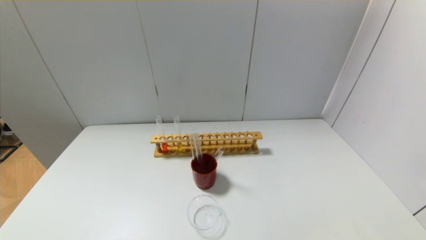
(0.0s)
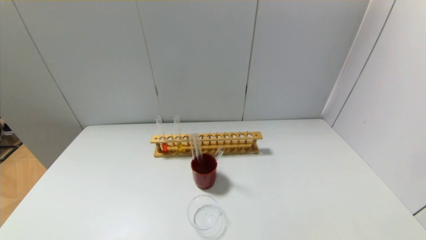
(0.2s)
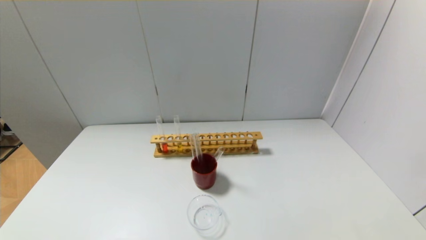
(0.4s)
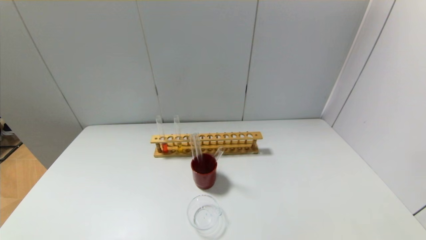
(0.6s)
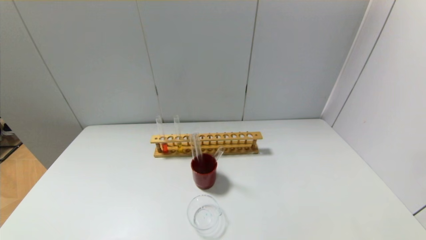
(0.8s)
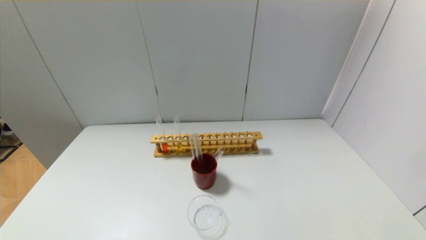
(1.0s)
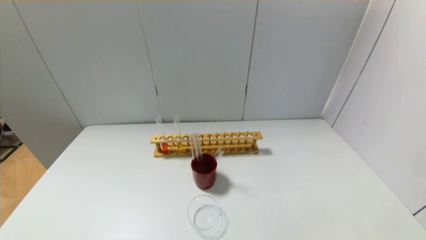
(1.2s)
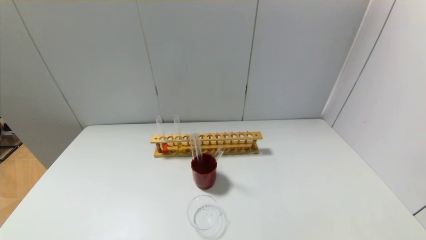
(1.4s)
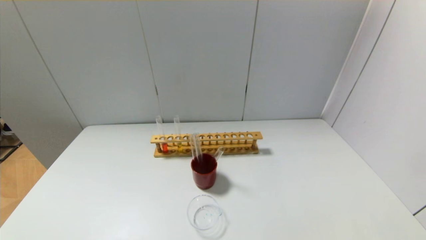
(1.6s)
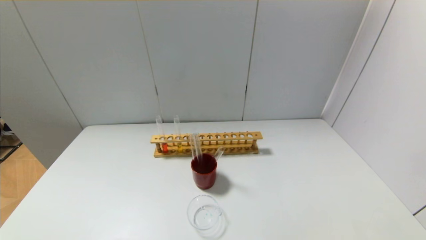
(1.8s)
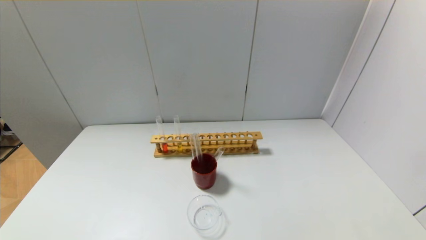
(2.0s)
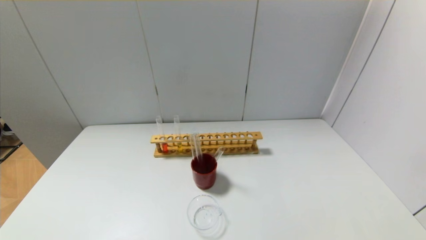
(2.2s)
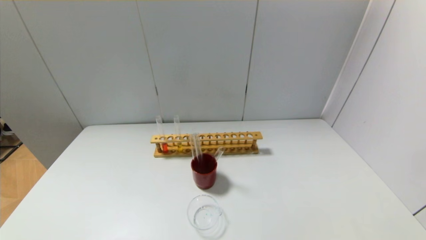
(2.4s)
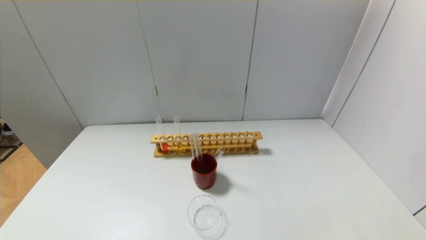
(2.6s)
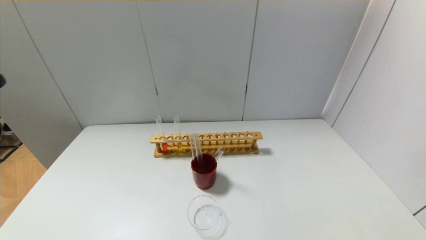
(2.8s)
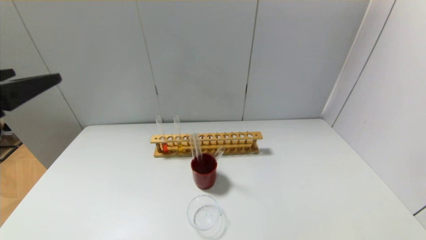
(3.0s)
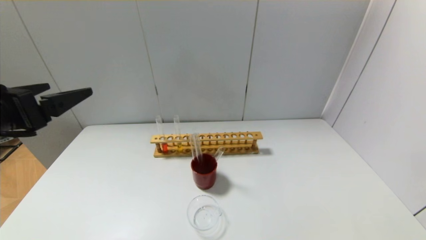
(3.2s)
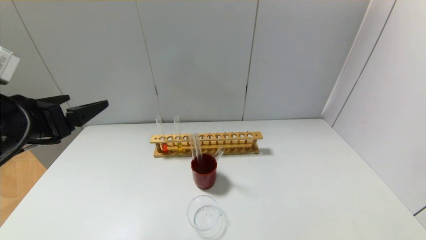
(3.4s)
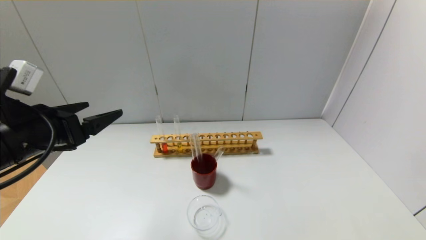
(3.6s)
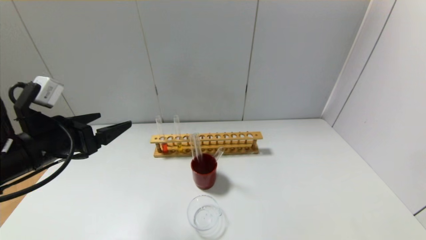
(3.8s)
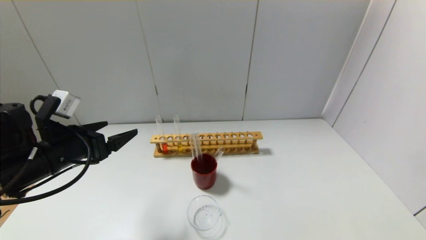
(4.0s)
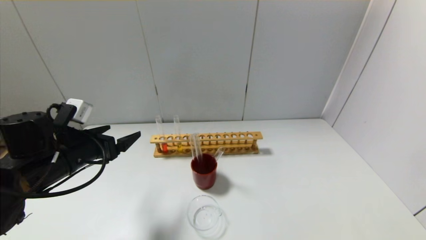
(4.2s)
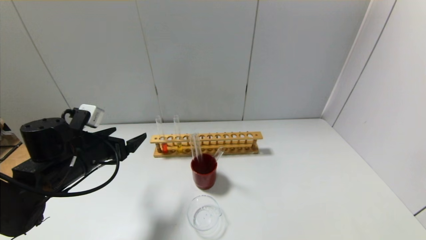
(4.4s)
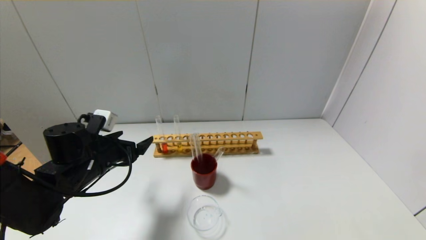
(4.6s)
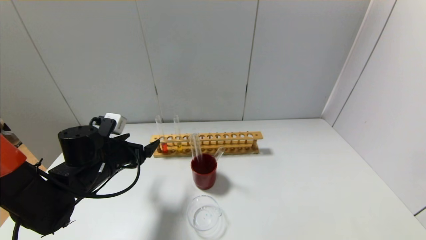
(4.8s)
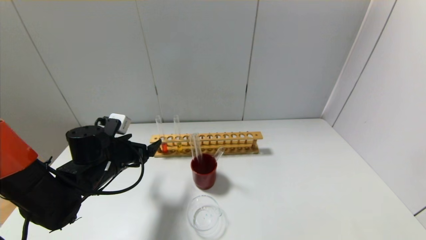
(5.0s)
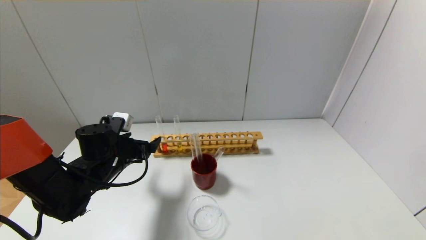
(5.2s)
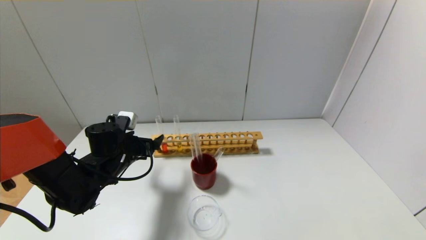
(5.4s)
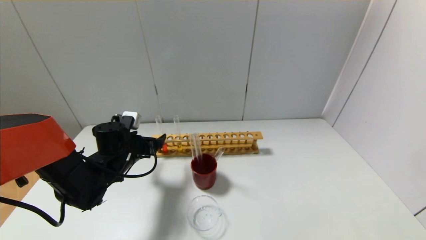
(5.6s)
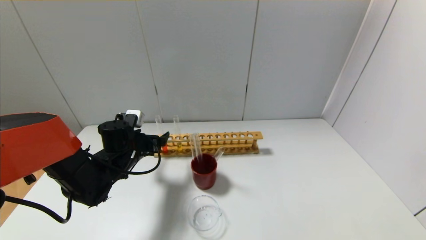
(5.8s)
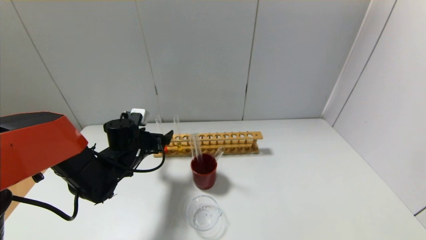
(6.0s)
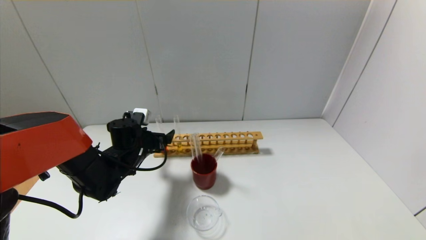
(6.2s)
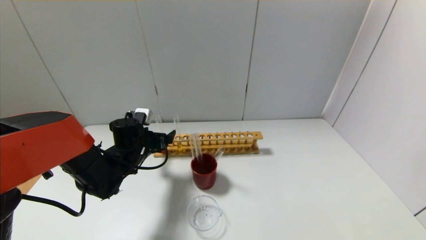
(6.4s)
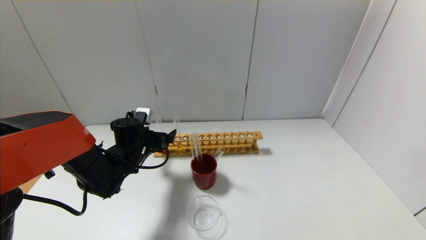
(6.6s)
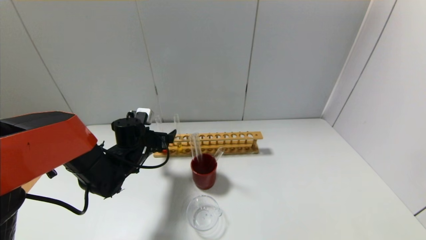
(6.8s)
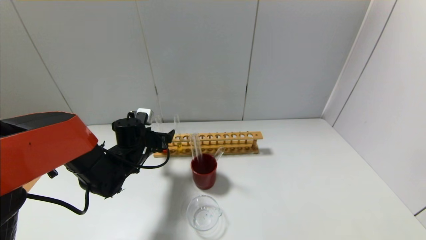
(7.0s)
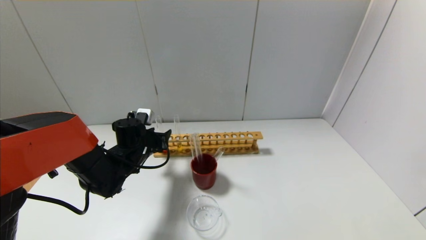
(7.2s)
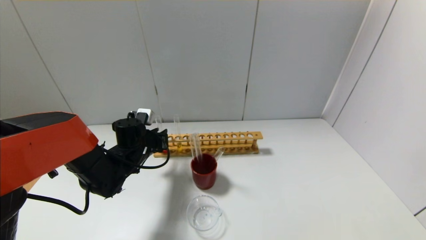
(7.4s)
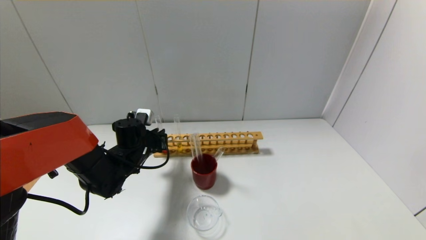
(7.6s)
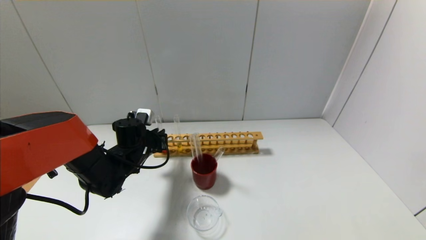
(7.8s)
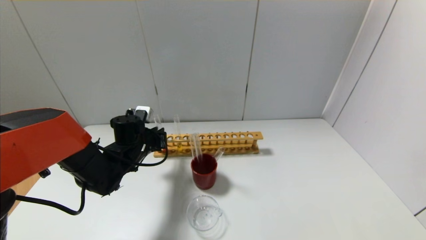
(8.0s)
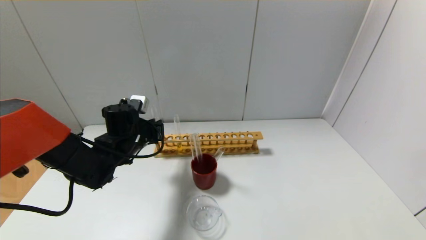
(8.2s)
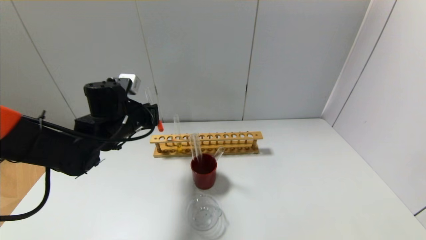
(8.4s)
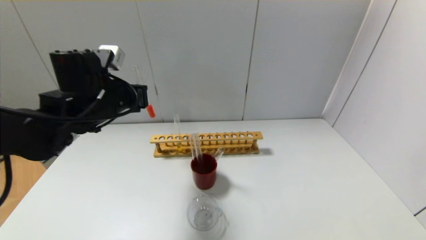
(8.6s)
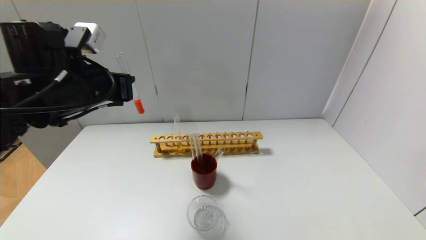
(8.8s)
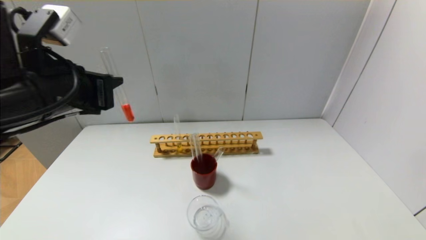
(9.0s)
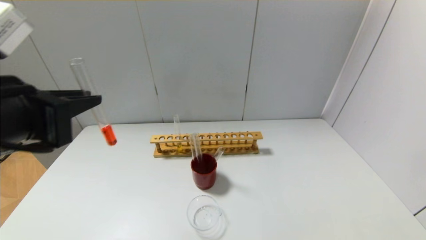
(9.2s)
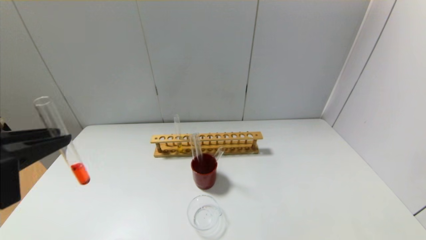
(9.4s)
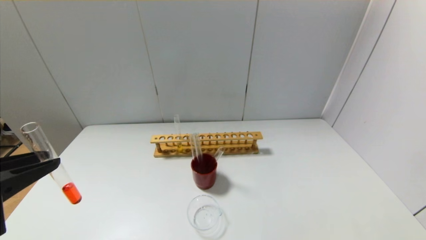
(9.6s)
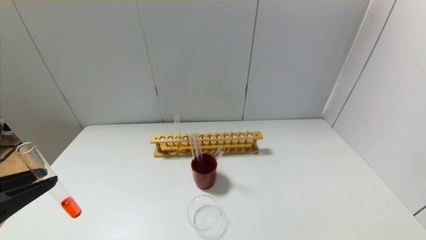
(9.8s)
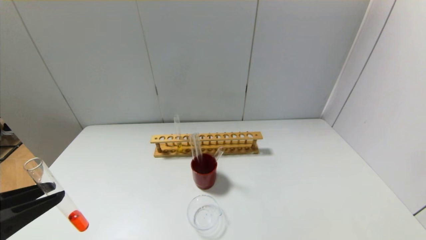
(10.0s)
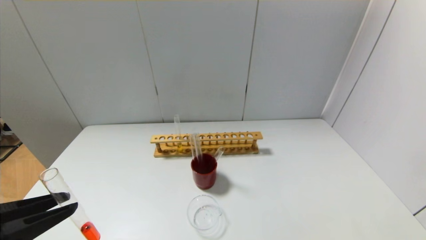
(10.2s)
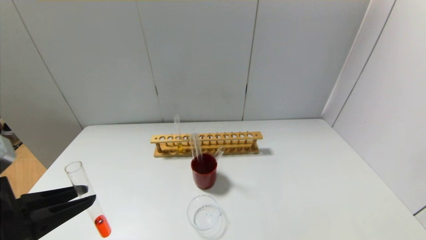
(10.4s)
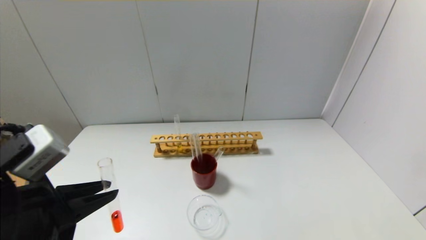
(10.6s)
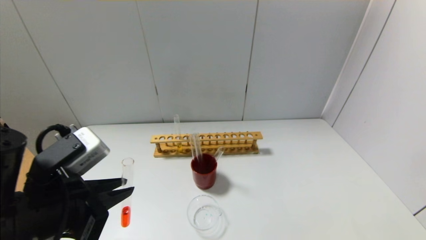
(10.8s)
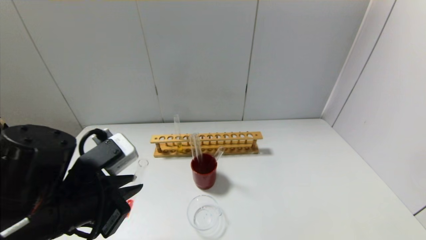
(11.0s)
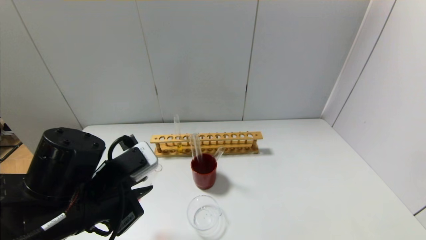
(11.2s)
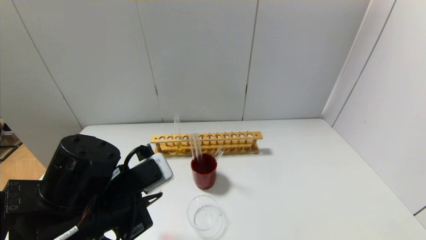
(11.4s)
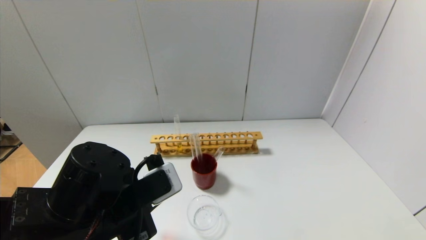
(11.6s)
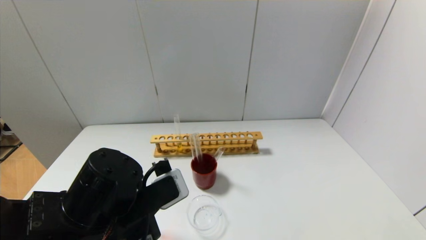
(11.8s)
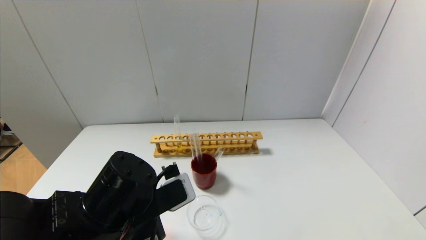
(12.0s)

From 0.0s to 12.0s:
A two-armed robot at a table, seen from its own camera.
Step, from 0.0s to 7.6s: Grasp the red reagent with the left gripper.
From 0.0s to 1.6s: The two grippers keep their place.
From 1.6s to 3.0s: The left gripper travels upward and forward by roughly 25 cm.
From 3.0s to 4.4s: The left gripper heads downward and forward, covering approximately 20 cm.
From 4.4s to 6.0s: The left gripper goes approximately 10 cm forward and to the right.
From 6.0s to 7.6s: The left gripper closes up.
From 7.6s to 9.0s: The left gripper heads upward and backward, covering some 30 cm.
From 9.0s to 10.4s: The left gripper heads backward and downward, covering some 15 cm.
From 10.4s to 12.0s: The left gripper goes about 15 cm to the right, downward and forward.

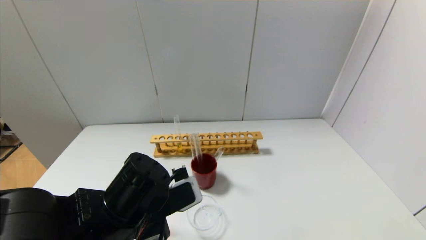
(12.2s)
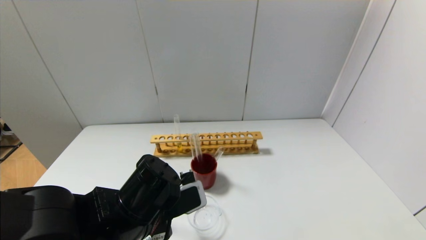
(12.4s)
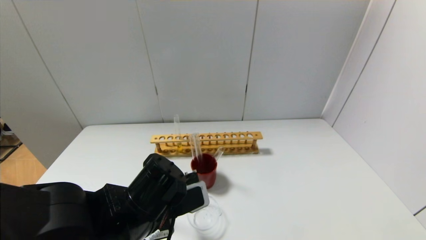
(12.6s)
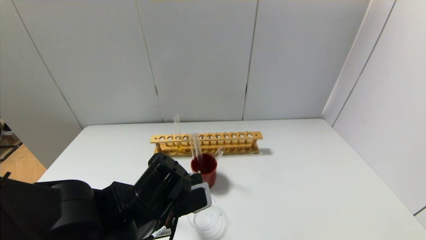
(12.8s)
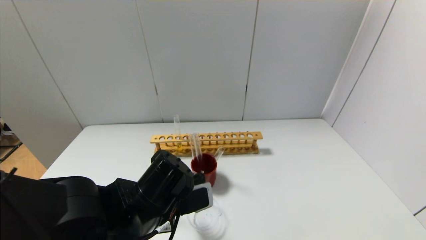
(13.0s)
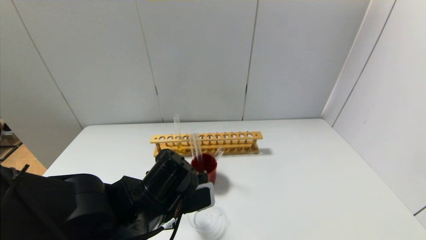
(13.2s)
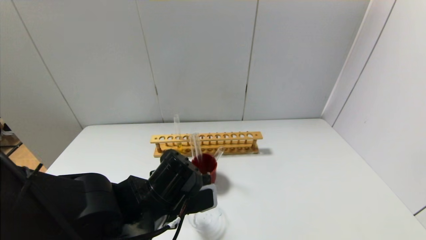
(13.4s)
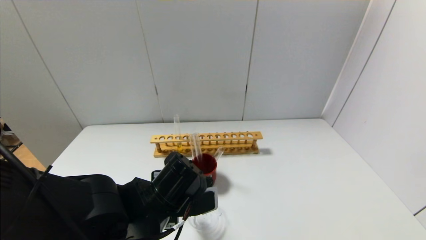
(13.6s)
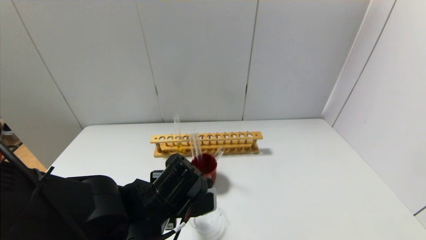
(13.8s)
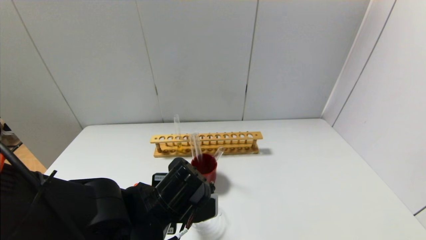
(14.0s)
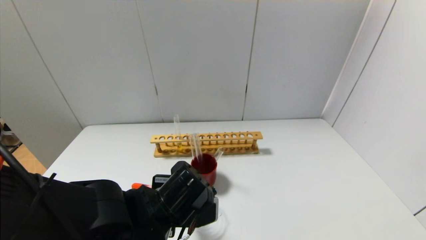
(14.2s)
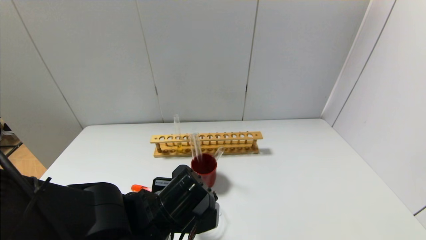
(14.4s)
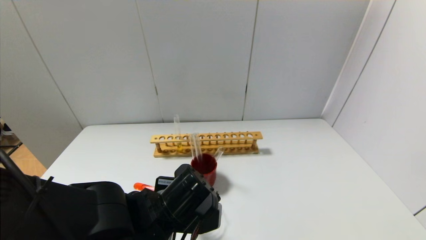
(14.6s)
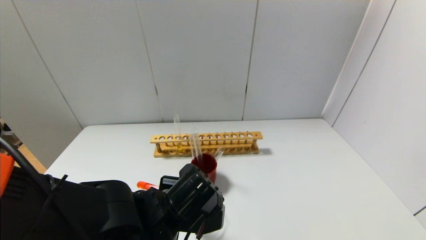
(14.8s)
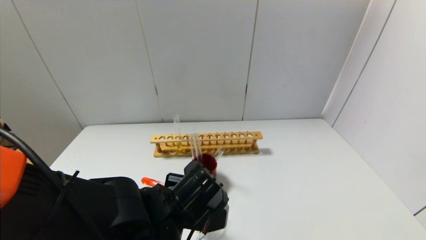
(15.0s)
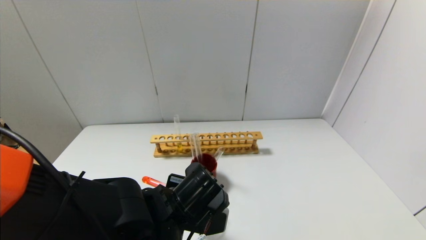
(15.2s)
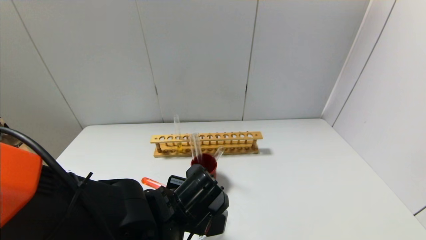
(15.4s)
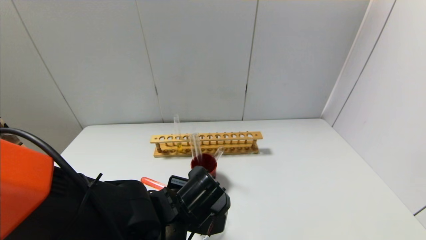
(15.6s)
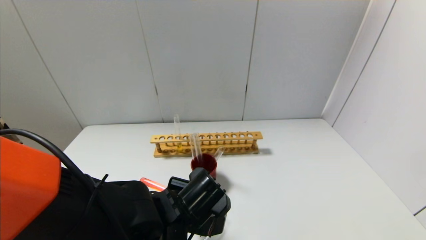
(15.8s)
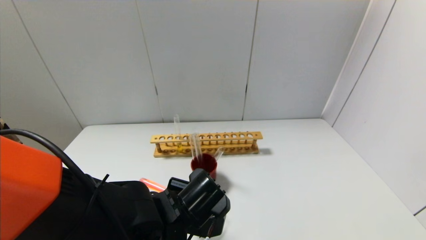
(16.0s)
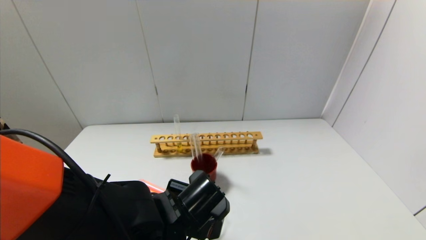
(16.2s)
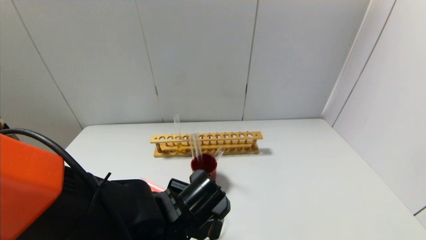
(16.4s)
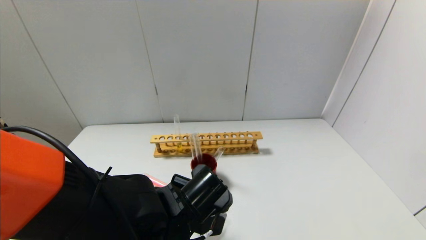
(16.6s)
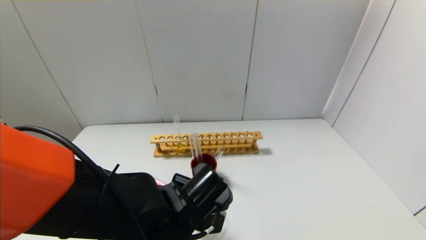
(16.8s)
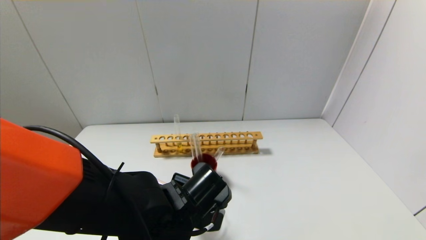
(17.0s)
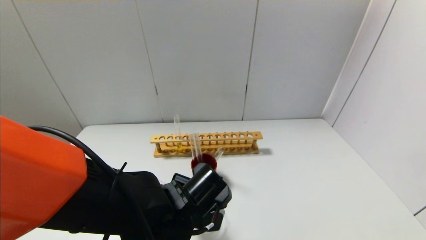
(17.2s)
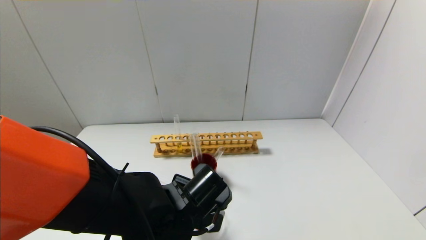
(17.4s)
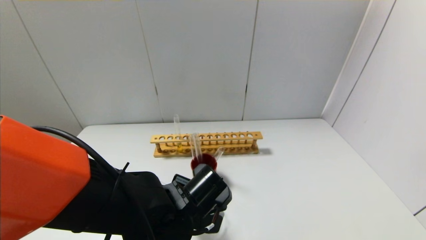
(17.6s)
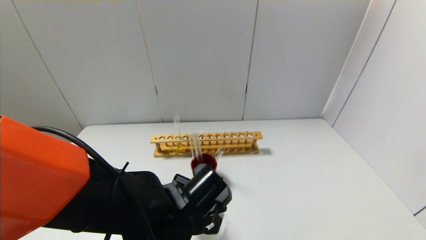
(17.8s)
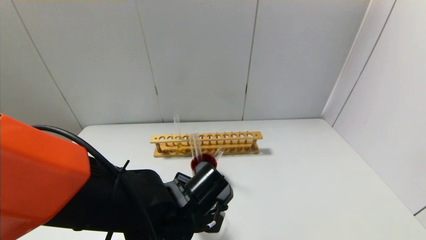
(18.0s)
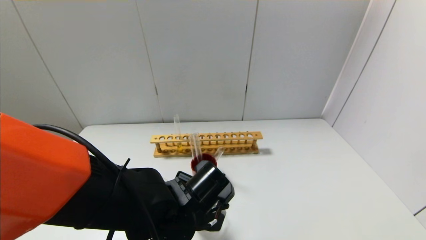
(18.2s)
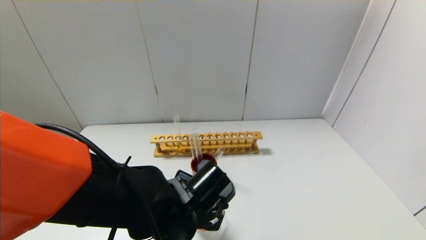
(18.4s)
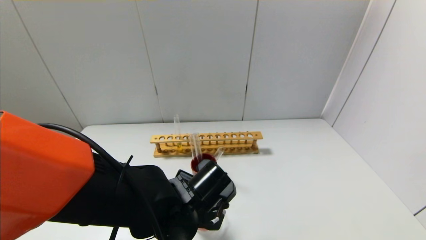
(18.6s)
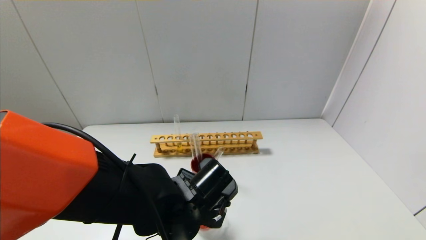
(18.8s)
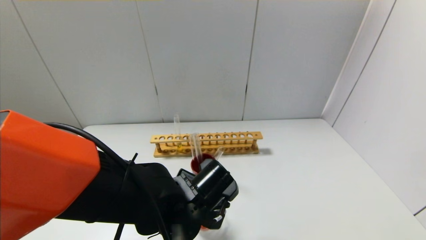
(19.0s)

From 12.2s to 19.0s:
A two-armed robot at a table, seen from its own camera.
From 13.6s to 15.0s: The grippers move only a little.
From 15.0s to 19.0s: The grippers stay close to where they were, moving slightly.
